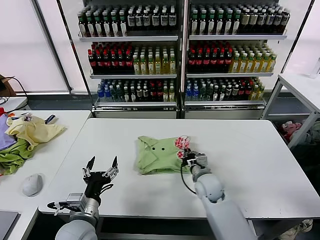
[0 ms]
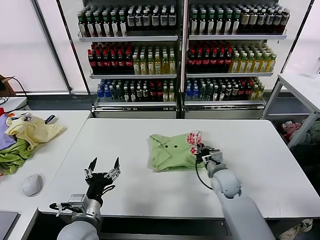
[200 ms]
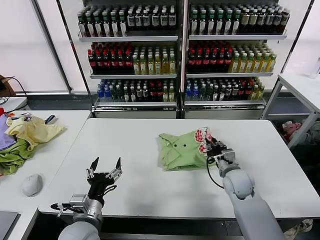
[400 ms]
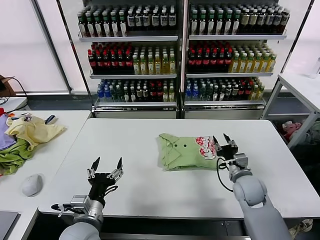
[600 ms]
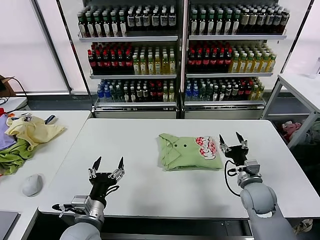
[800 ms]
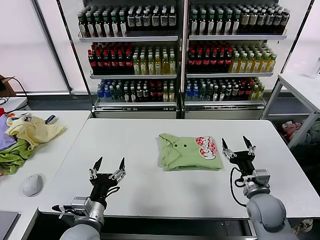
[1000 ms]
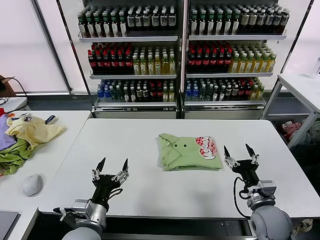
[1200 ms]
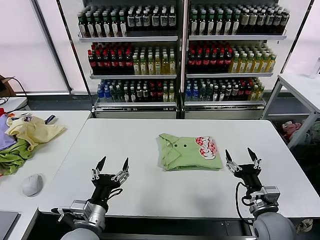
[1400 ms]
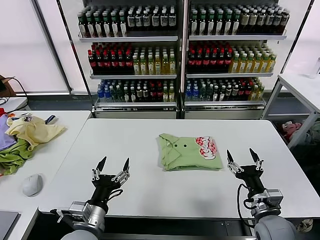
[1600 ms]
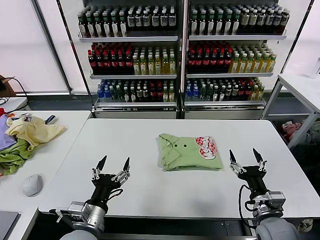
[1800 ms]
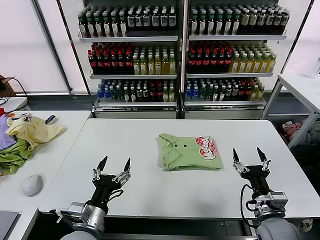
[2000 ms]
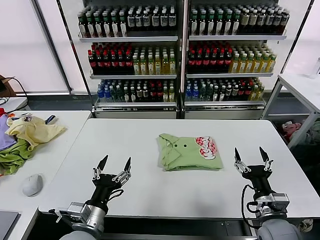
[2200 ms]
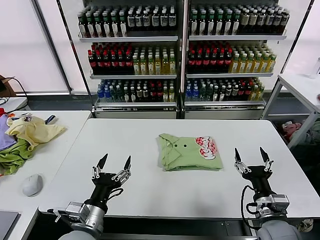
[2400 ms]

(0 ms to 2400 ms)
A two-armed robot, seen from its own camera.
Task of the whole recording: fold and organize the clothes.
0 ms - 1200 ms: The right gripper heads to the right and backward, covering some 20 cm, and opens.
1200 ms - 2400 ms: The right gripper moves some 5 cm.

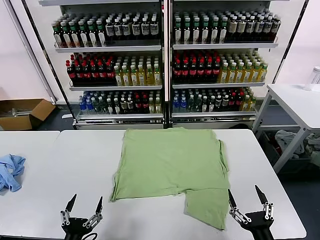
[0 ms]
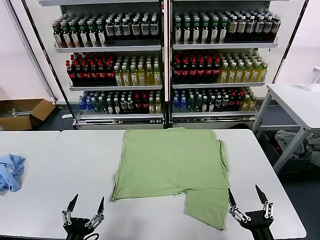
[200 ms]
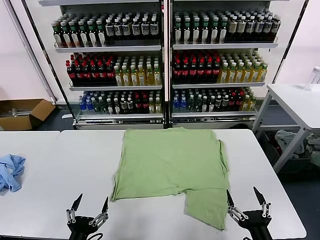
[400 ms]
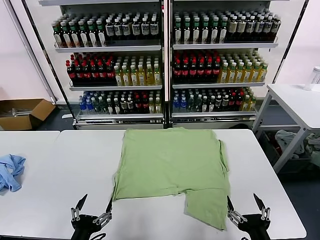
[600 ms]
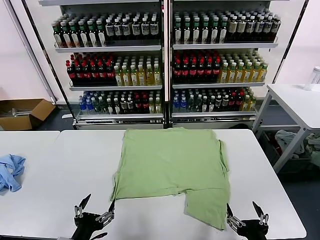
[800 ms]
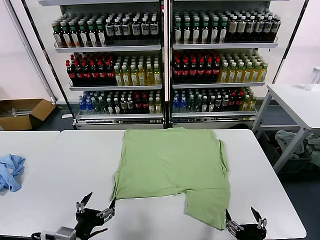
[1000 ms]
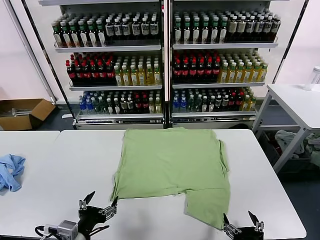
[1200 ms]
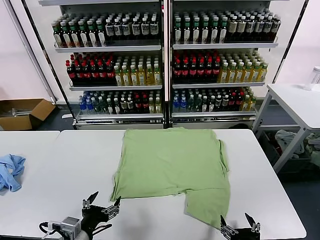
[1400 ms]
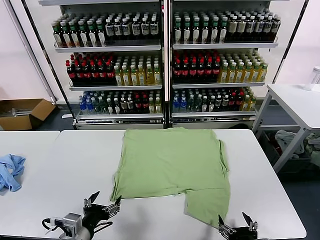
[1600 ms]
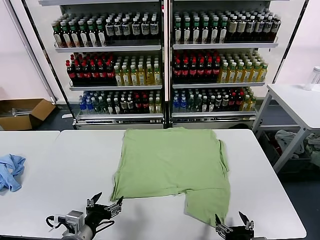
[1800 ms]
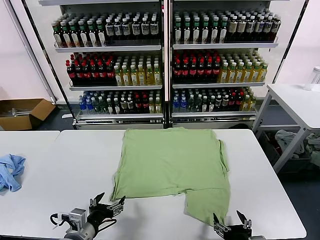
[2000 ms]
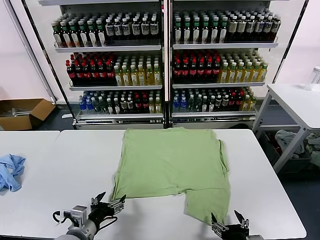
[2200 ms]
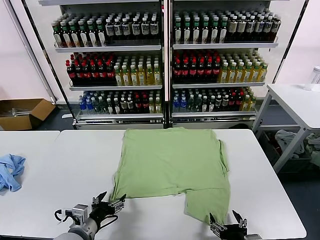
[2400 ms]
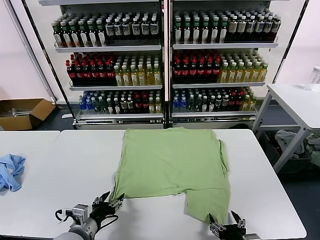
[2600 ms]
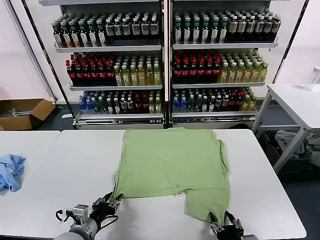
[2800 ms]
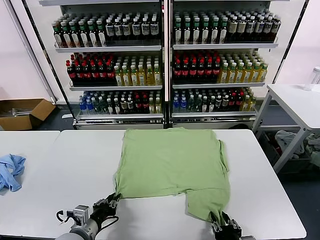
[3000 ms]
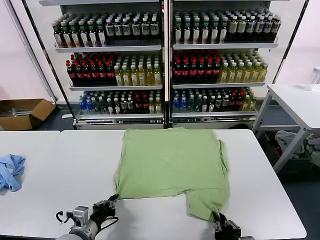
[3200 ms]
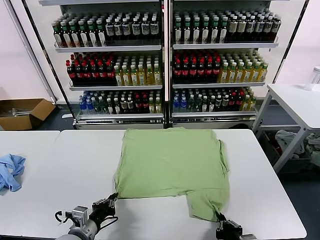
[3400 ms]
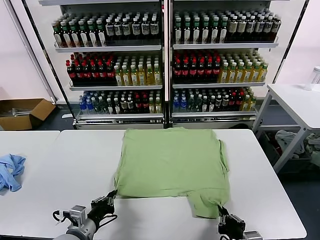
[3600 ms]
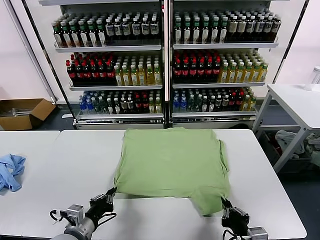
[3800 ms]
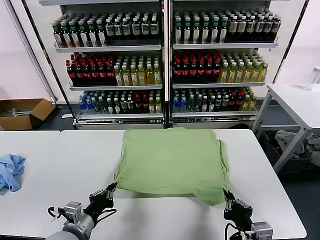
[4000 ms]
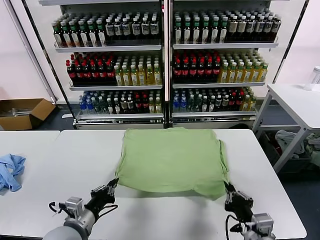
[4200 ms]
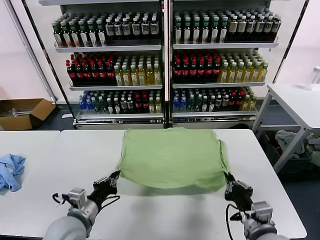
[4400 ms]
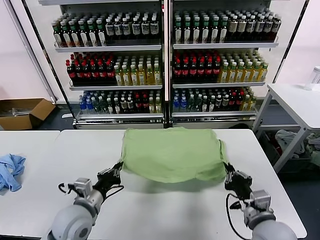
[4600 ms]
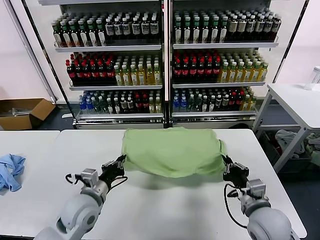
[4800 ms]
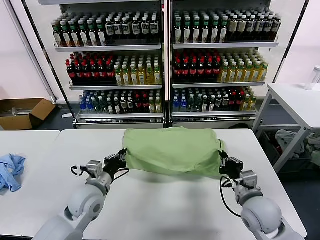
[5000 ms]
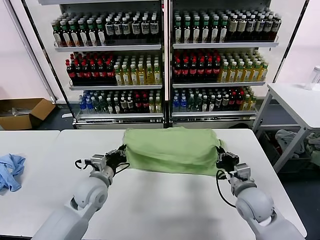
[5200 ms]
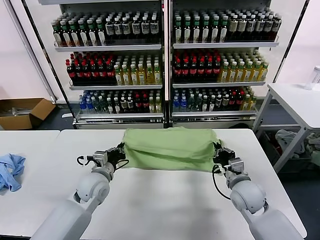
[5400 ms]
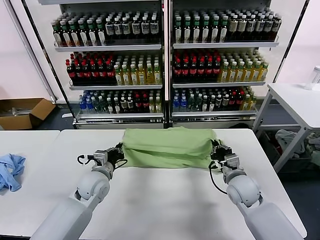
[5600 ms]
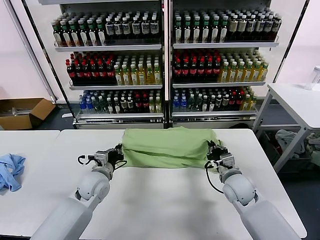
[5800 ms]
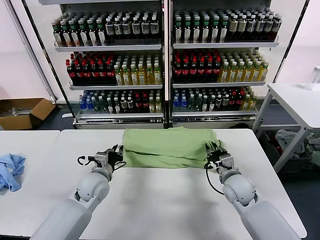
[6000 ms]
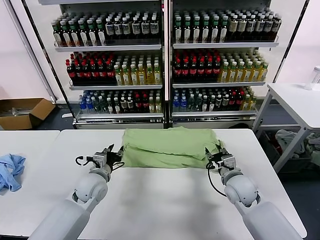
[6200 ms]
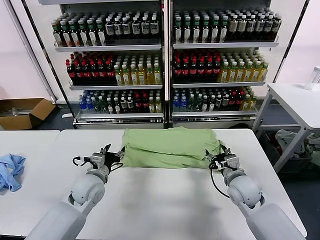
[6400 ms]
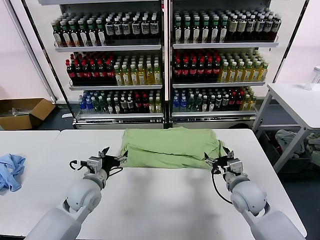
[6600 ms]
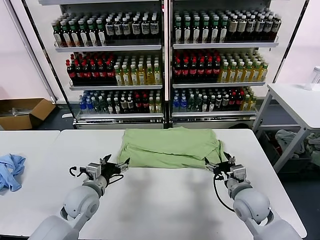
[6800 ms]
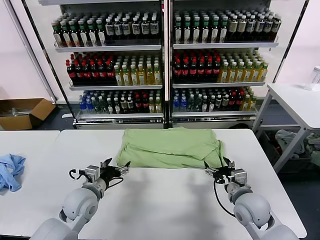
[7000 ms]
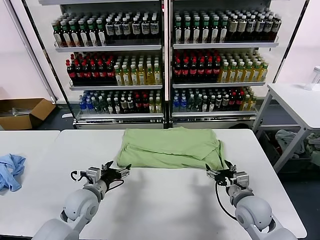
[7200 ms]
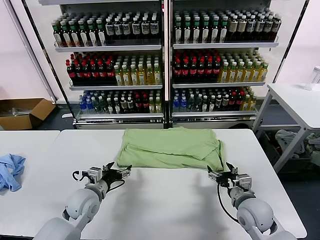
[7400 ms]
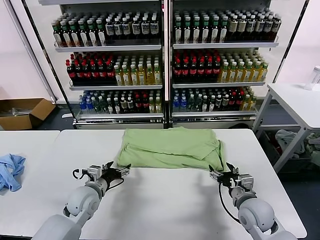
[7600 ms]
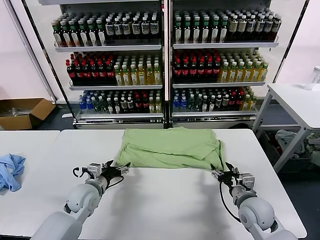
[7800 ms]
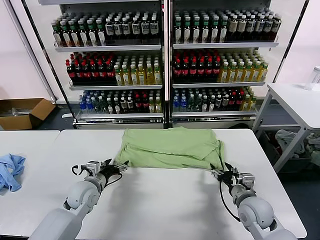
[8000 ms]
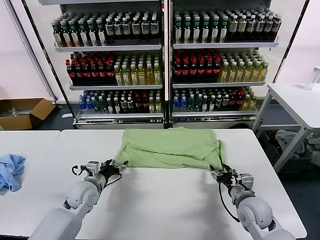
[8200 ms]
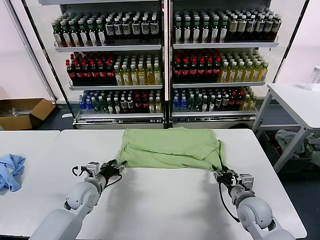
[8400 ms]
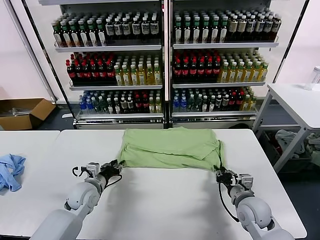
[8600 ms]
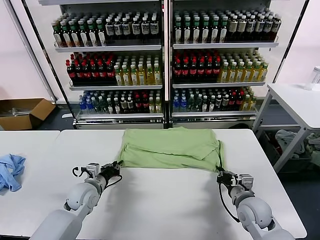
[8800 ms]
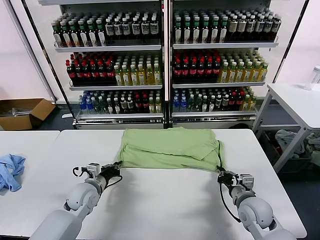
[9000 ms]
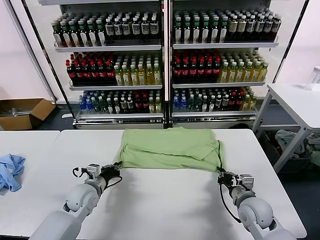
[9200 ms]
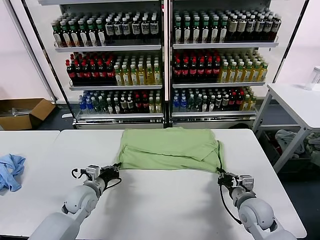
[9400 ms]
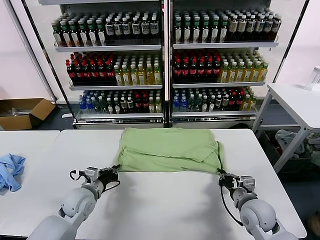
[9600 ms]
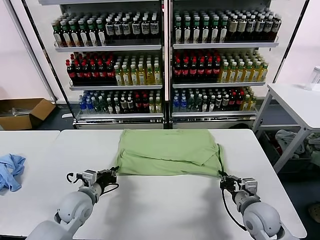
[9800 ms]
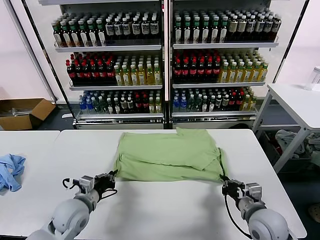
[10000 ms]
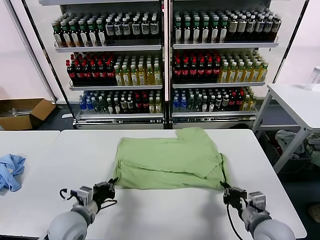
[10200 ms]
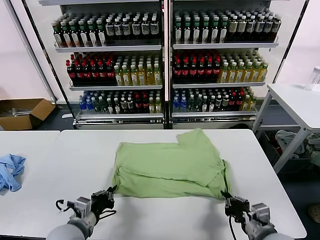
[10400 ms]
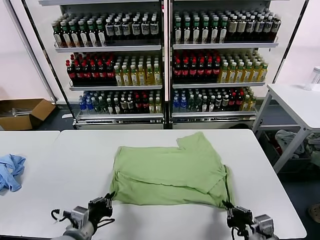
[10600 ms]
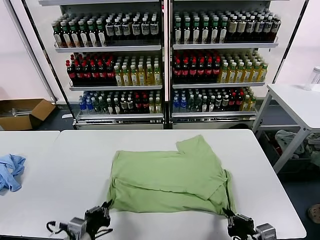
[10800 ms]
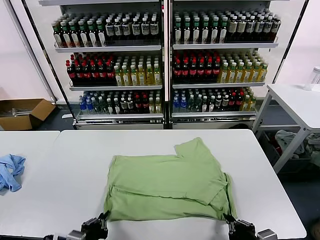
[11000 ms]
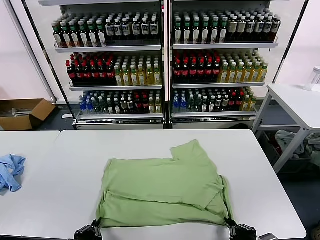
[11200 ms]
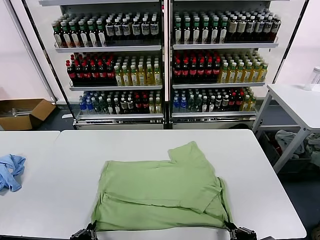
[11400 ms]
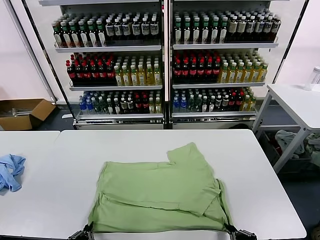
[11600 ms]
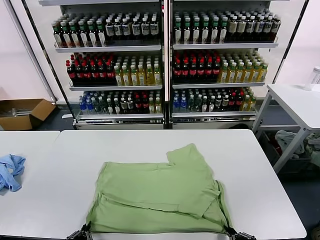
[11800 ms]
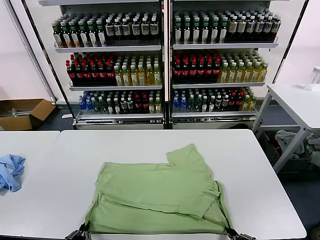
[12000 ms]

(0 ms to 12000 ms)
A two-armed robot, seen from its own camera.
Task of the whole recording: fold and organize the clothes.
Step, 0 ms - 3200 ms: use both grippers simultaneously to clamp the lower edge of the clothing fabric.
Step, 3600 ms - 6000 ms: use both grippers to drag the lower edge of the fabric forward and fold it over the upper edge.
1600 ms - 3000 ms: The left gripper changes place by roughly 5 cm, and closes up, while the right gripper closes.
3000 ms - 4400 ms: The right gripper travels upward and forward by approximately 10 cm, and closes its fingers, while the left gripper heads upward, covering roughly 5 cm.
4400 ms - 6000 ms: Both grippers travel together forward, roughly 15 cm. The right gripper opens up.
6000 ms - 7600 ms: The right gripper heads backward, covering about 10 cm, and opens, while the left gripper shifts by roughly 5 cm, and opens its fingers.
7600 ms - 9000 ms: The right gripper closes its fingers, while the left gripper closes up.
9000 ms - 10400 ms: The left gripper travels backward by roughly 15 cm; the right gripper moves backward and upward, approximately 15 cm.
10400 ms - 12000 ms: The left gripper moves backward, about 15 cm; the right gripper goes approximately 10 cm backward.

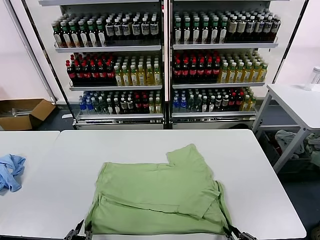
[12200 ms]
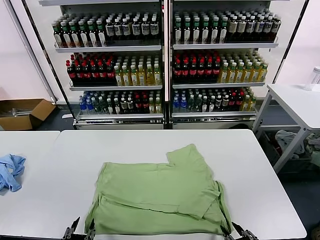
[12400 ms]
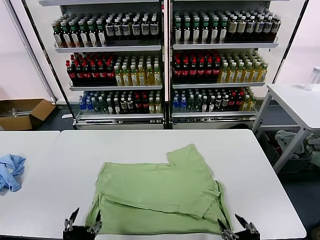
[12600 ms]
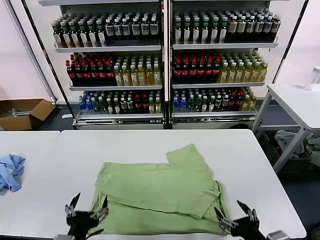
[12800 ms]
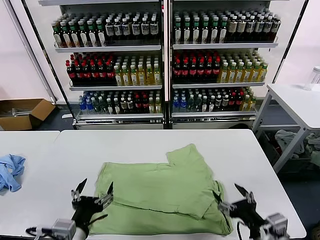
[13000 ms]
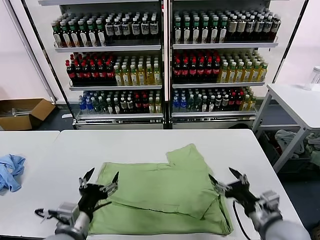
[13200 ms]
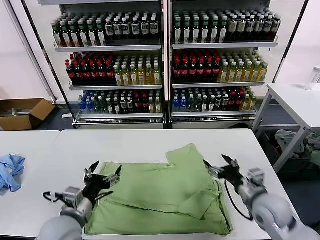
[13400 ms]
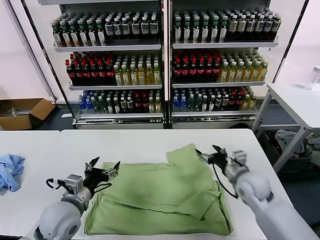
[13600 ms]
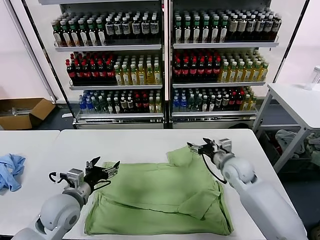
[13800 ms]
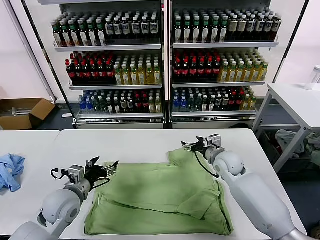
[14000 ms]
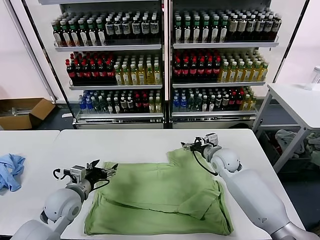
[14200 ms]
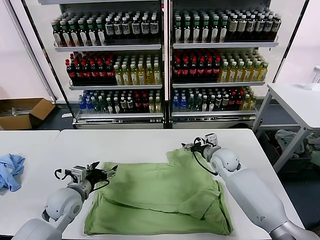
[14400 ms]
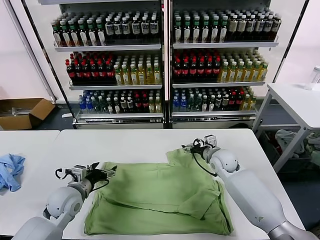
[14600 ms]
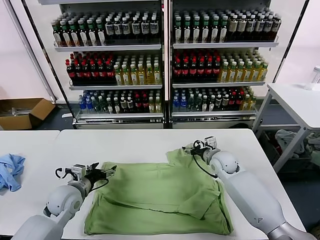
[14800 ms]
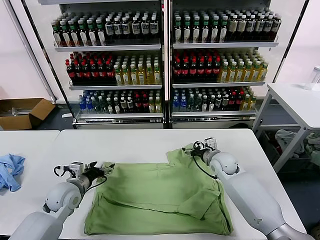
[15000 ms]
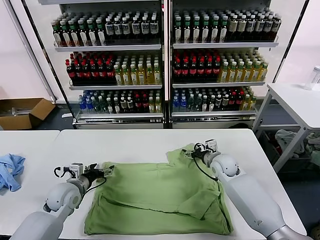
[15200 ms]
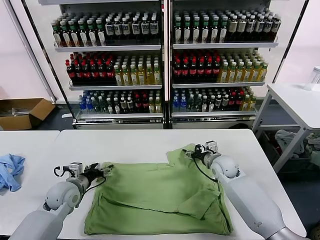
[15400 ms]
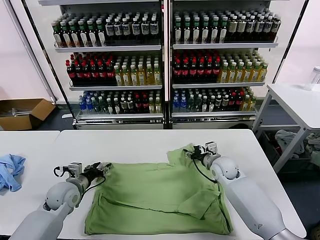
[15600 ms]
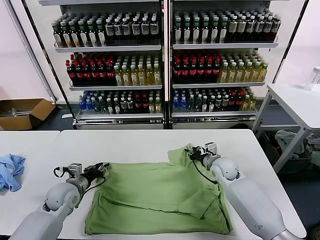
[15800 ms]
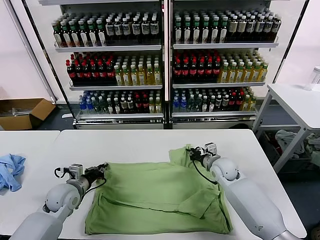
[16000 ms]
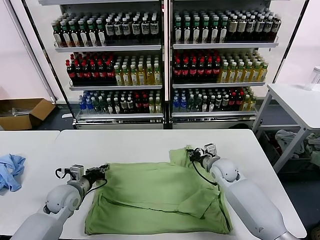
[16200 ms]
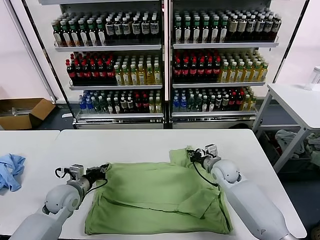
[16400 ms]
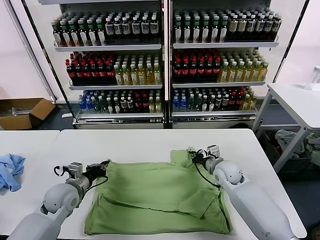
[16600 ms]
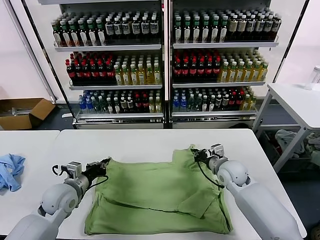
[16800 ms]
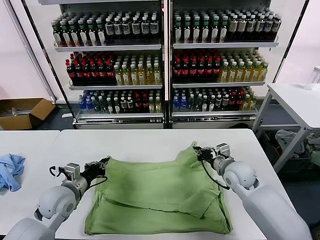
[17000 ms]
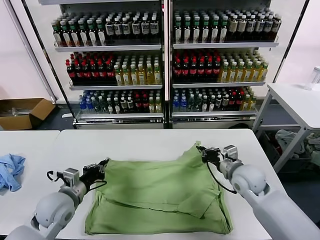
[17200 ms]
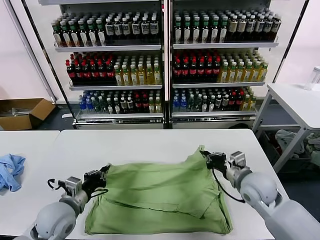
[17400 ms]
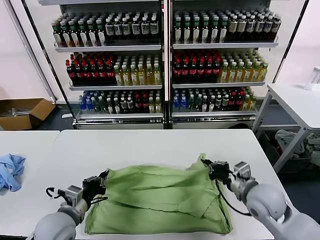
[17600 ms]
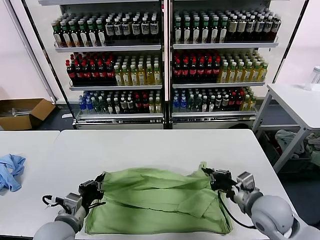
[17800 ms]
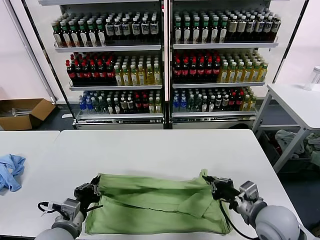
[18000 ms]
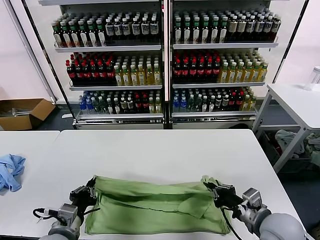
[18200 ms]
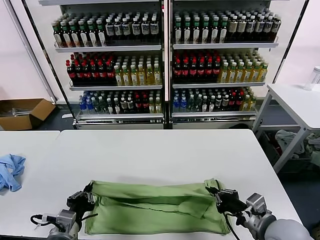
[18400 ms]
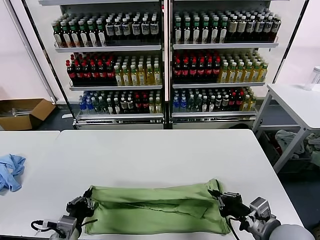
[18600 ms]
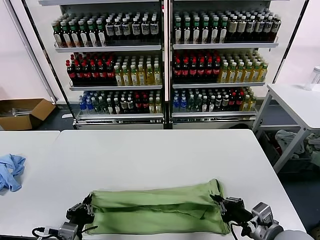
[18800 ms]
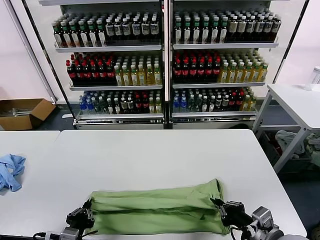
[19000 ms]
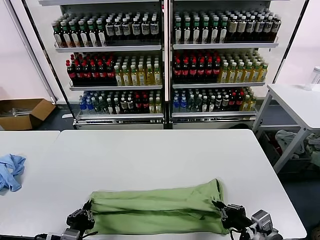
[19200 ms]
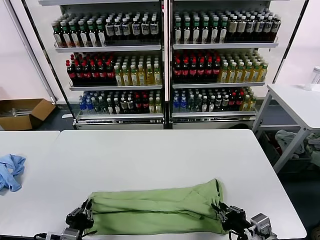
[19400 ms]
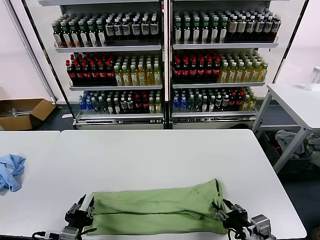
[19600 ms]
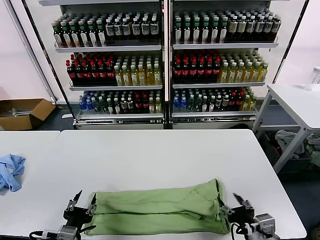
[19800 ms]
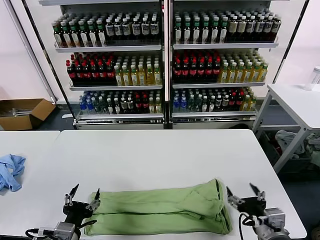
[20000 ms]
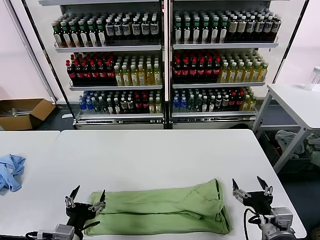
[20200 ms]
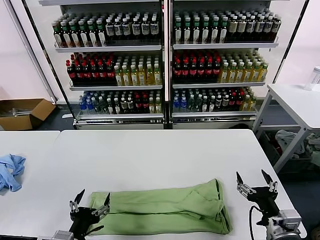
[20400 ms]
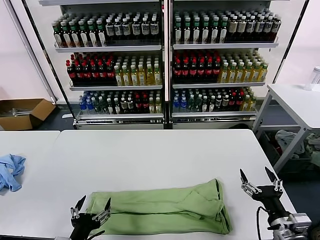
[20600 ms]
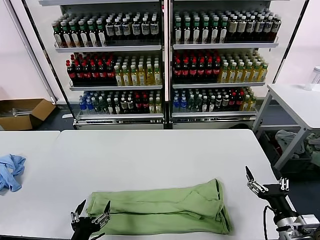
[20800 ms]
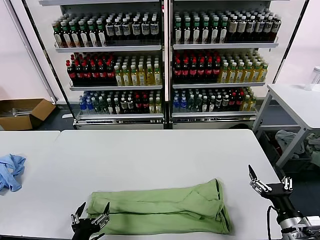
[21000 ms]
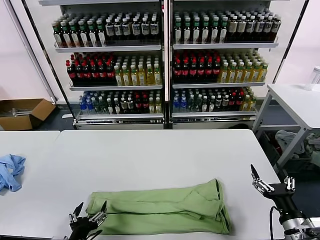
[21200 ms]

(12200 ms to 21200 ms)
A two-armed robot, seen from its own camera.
Task of the whole recording: fold and organize the clothes.
Step, 12600 ms - 16200 ms: use both grippers simultaneously to clamp the upper edge of the clothing fabric.
Step, 16400 ms - 19600 ms: use both grippers to drag the upper edge of the fabric backward and fold it over the lower edge.
12200 ms - 13800 ms: The right gripper travels forward by about 35 cm, and opens. The left gripper goes some 20 cm forward, and opens its fingers.
13800 ms - 15200 ms: The right gripper changes place by roughly 5 cm, while the left gripper shifts some 10 cm forward and downward.
15200 ms - 16600 ms: The left gripper closes; the right gripper closes up.
16600 ms - 18200 ms: The two grippers go roughly 20 cm backward.
18200 ms - 19800 ms: The right gripper shifts some 5 cm backward, and opens up; the left gripper shifts by approximately 5 cm, and opens up.
19800 ms - 21200 ms: The left gripper opens up. Meanwhile the right gripper shifts roughly 10 cm to the right.
